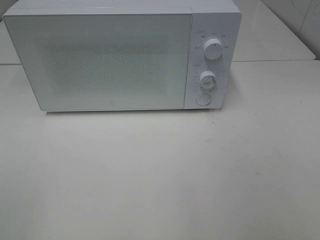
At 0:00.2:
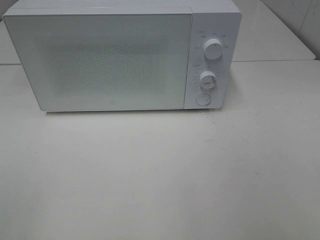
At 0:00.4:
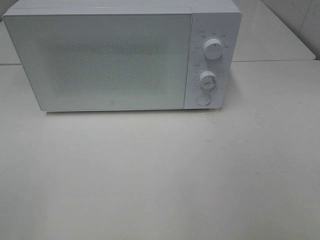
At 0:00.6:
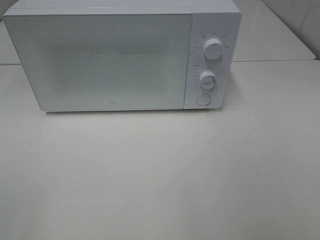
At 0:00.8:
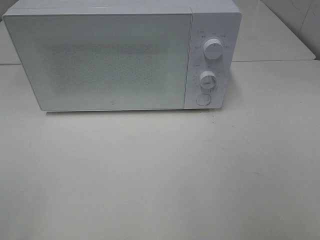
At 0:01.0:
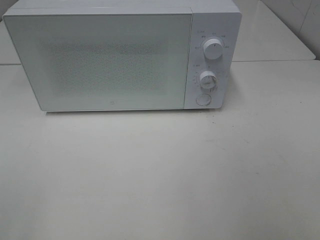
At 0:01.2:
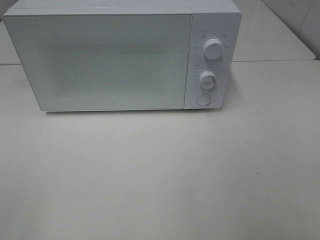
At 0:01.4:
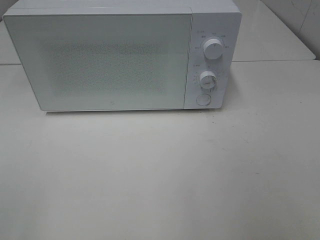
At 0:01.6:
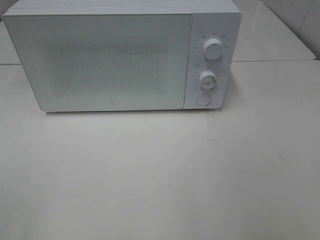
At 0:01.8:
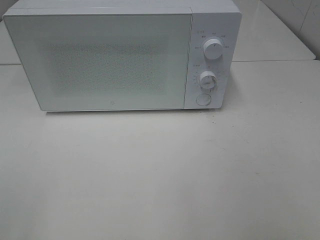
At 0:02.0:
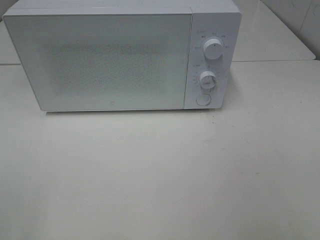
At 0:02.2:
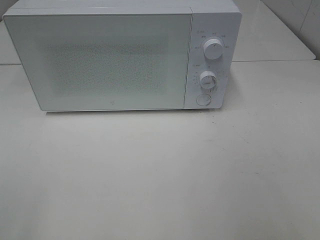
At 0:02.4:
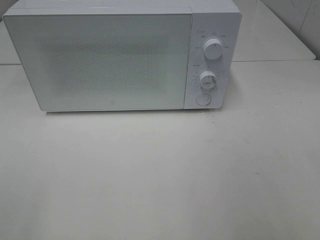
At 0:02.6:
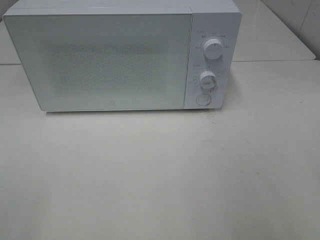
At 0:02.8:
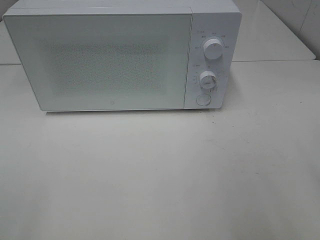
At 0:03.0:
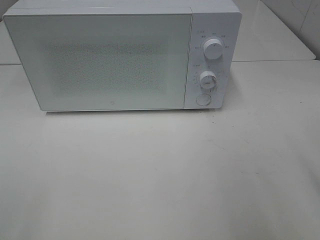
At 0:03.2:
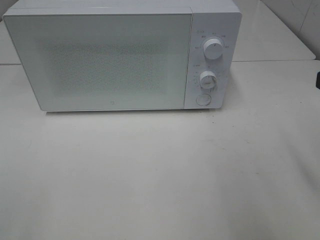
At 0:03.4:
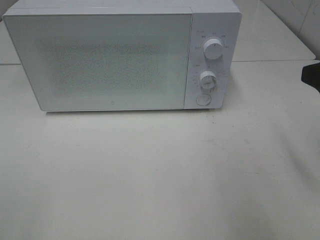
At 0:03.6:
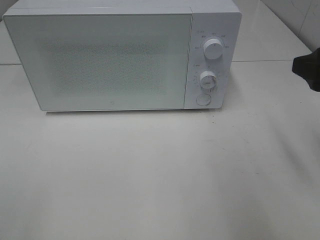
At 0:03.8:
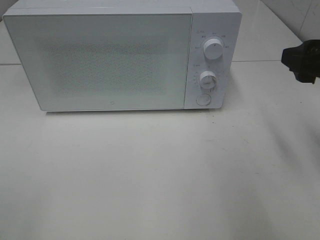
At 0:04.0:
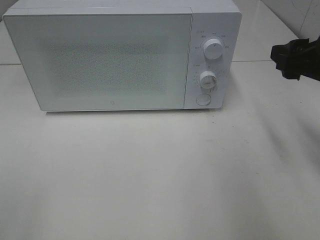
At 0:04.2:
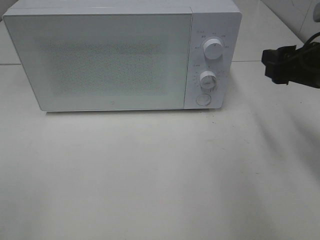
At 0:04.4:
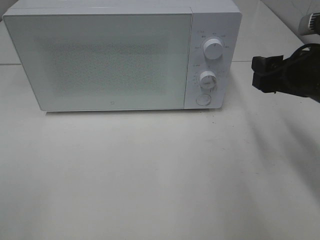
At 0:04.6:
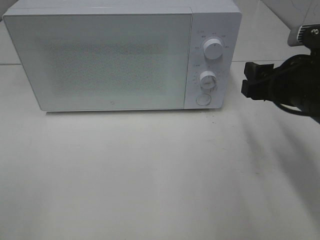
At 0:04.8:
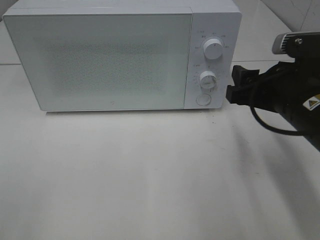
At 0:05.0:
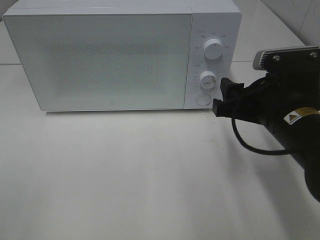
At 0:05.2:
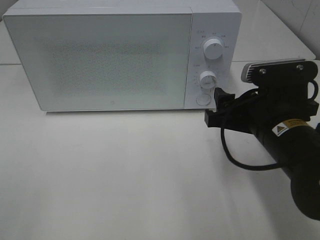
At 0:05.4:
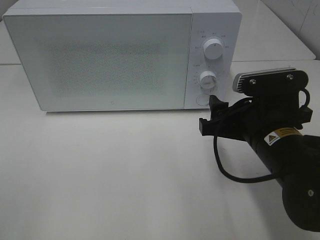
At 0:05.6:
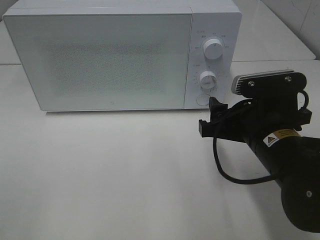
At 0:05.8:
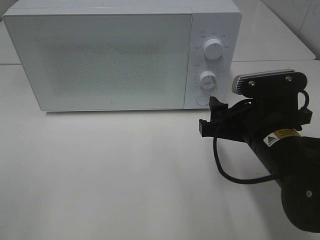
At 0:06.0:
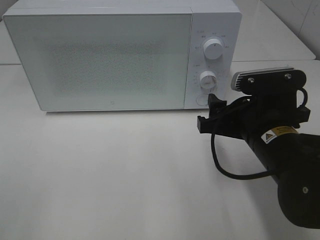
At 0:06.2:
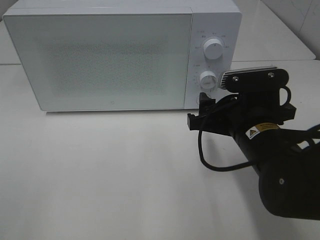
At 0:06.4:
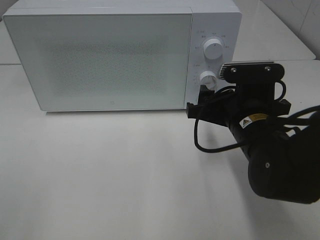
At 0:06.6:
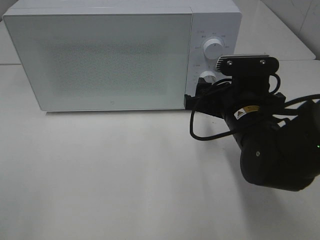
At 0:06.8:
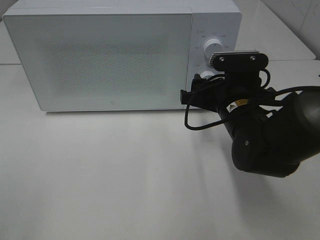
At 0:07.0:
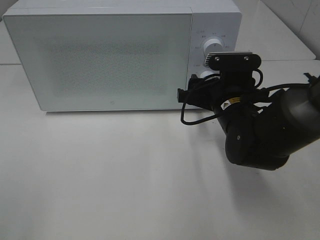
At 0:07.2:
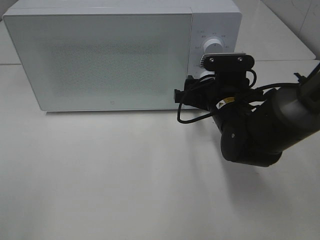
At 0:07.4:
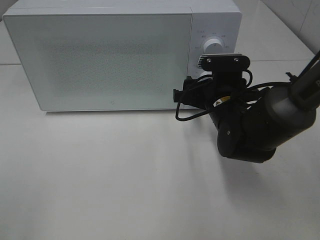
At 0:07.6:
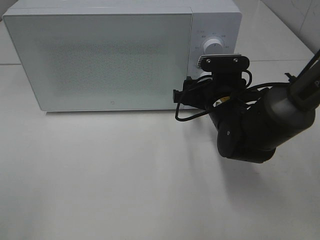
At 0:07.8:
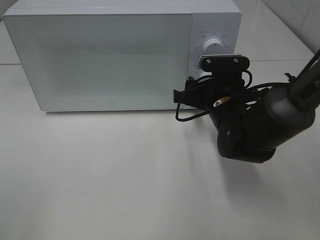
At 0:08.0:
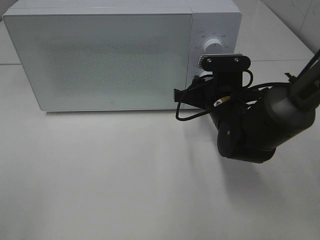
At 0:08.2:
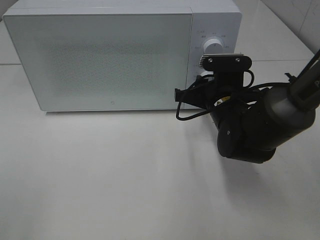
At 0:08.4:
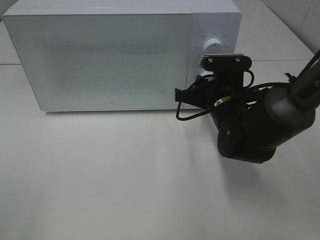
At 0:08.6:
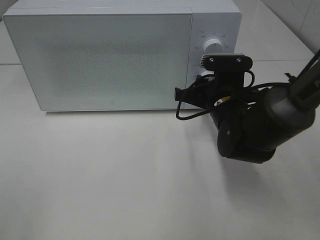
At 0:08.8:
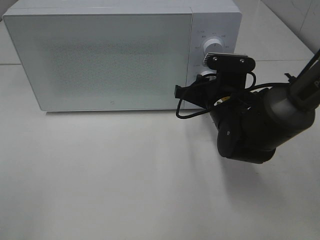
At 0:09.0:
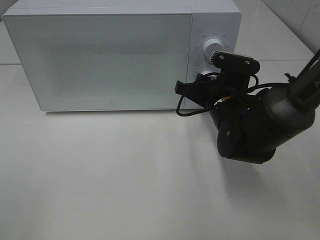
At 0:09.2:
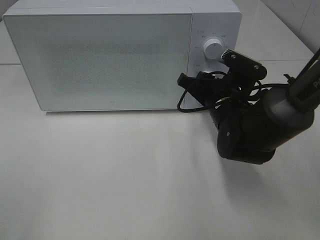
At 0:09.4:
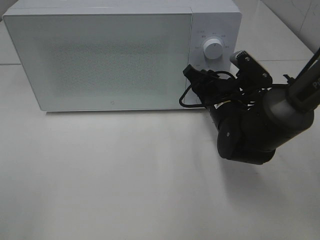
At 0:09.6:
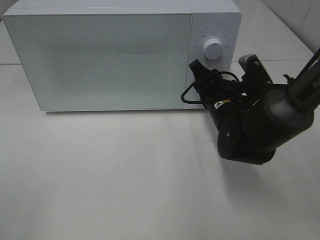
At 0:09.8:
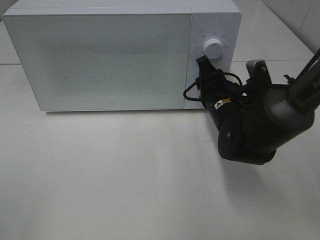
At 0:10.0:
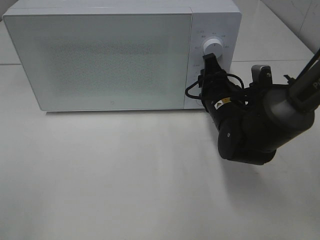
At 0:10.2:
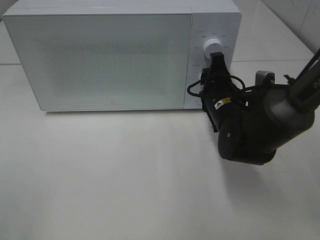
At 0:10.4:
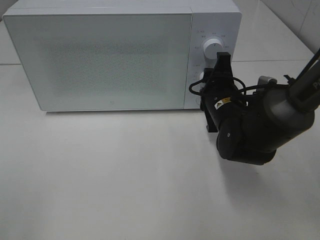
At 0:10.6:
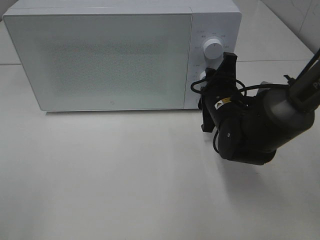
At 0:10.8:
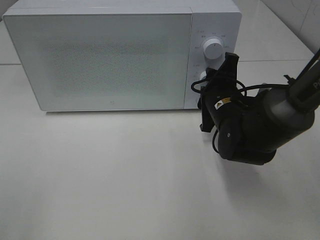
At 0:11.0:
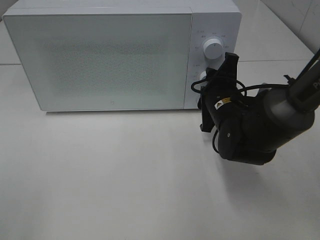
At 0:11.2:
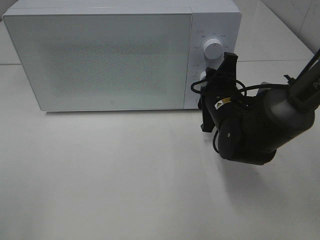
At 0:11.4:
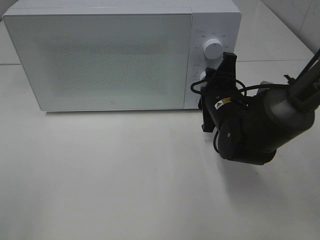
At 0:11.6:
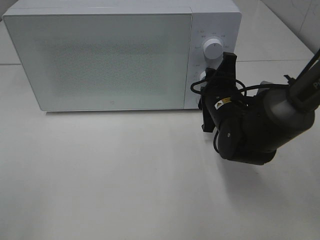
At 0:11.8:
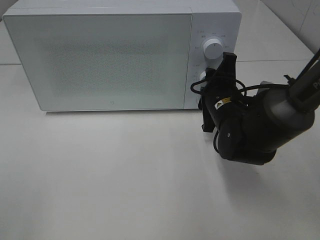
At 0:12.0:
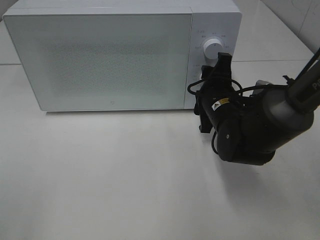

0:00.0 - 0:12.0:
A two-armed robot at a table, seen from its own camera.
Task of the whole recording: Heat Sandwich.
0:00.0 - 0:01.6: The two grippers keep their place.
0:03.0 - 0:04.4: The right gripper heads forward and downward, covering roughly 15 cm.
0:04.4 - 0:06.0: The right gripper moves to the left and downward, approximately 10 cm.
0:06.0 - 0:07.6: The right gripper is displaced forward by roughly 10 cm.
0:07.6 - 0:09.0: The right gripper closes its fingers.
0:10.4 - 0:12.0: The grippers make only small movements.

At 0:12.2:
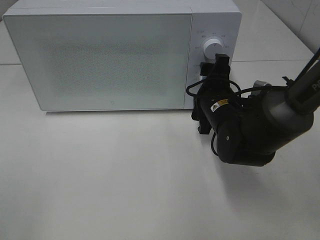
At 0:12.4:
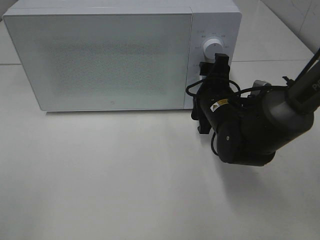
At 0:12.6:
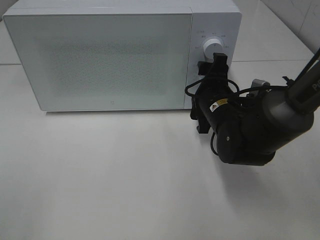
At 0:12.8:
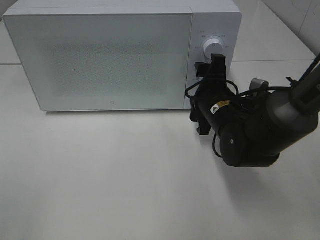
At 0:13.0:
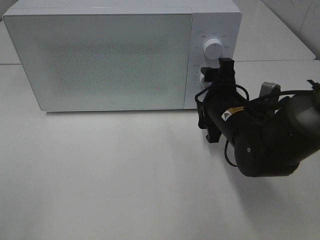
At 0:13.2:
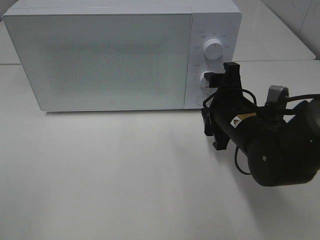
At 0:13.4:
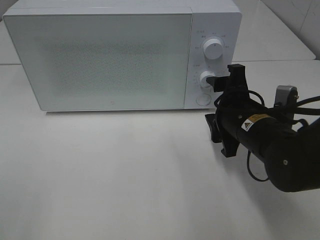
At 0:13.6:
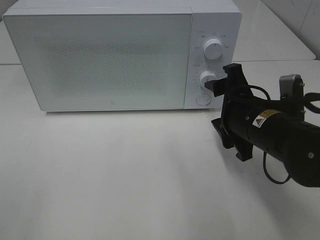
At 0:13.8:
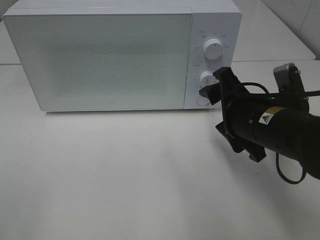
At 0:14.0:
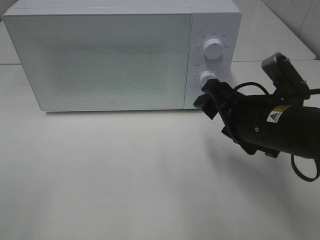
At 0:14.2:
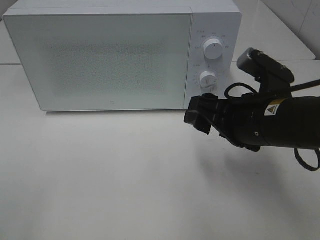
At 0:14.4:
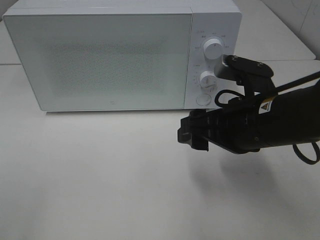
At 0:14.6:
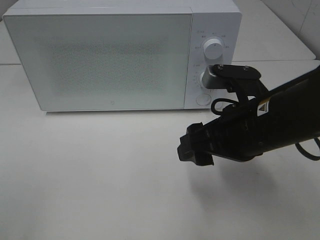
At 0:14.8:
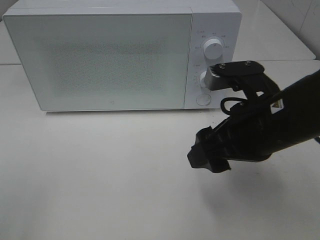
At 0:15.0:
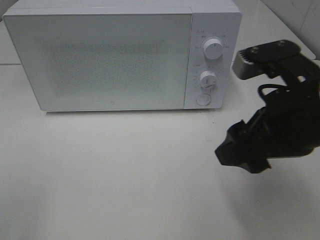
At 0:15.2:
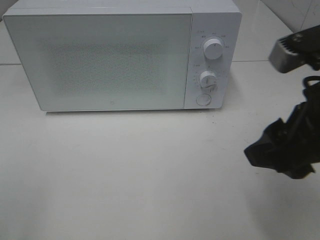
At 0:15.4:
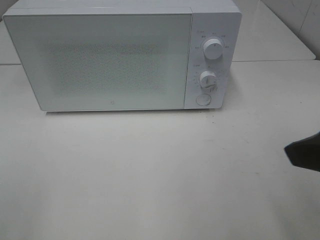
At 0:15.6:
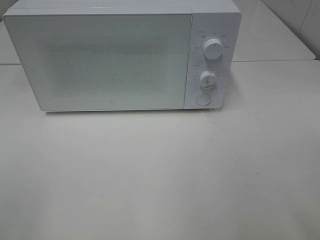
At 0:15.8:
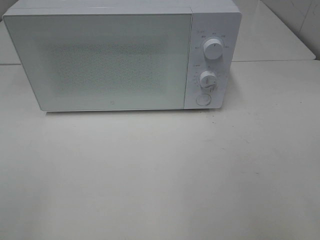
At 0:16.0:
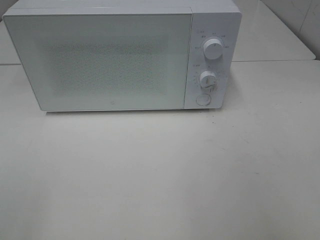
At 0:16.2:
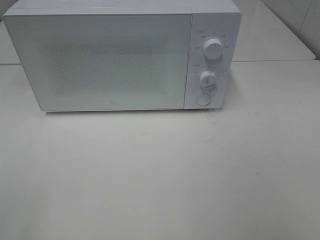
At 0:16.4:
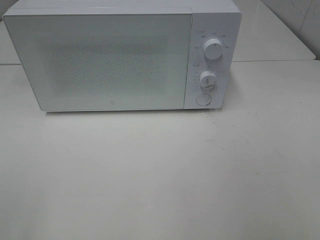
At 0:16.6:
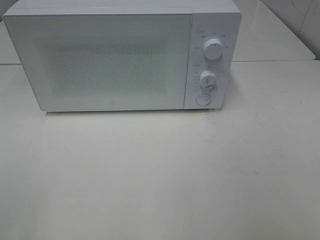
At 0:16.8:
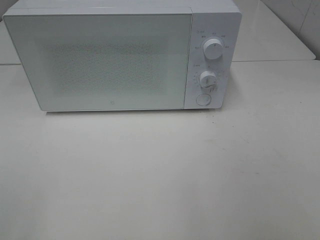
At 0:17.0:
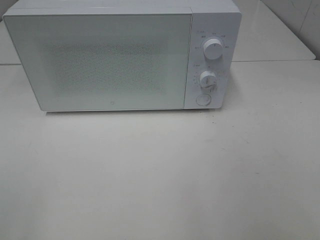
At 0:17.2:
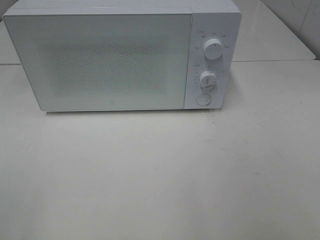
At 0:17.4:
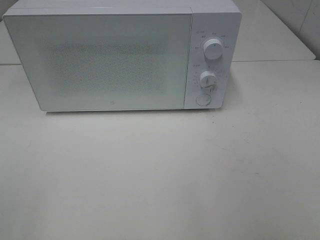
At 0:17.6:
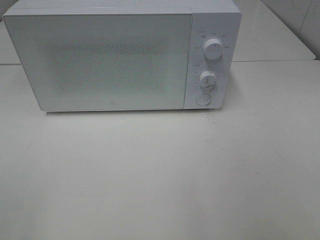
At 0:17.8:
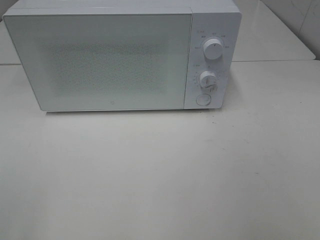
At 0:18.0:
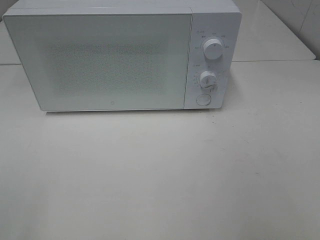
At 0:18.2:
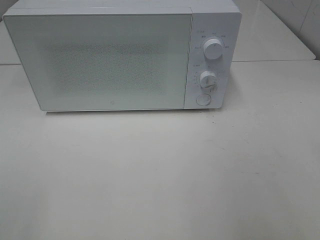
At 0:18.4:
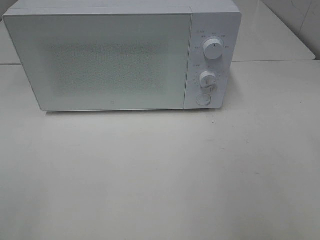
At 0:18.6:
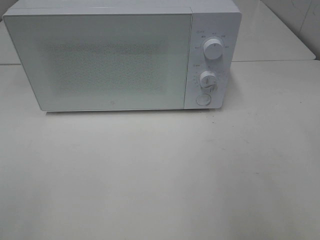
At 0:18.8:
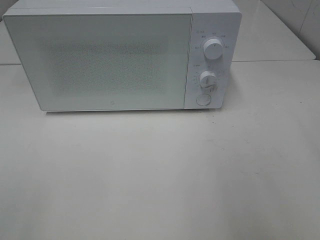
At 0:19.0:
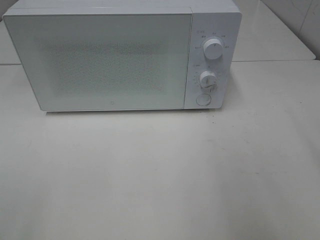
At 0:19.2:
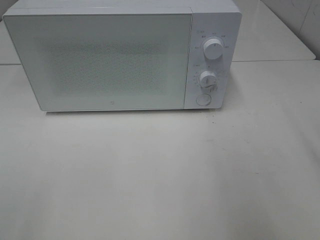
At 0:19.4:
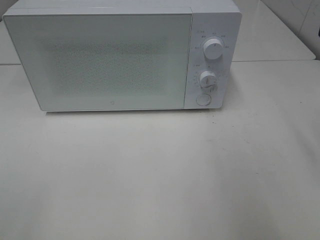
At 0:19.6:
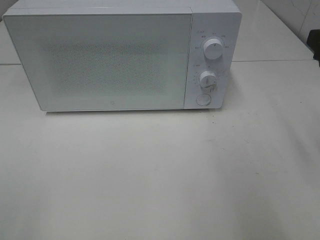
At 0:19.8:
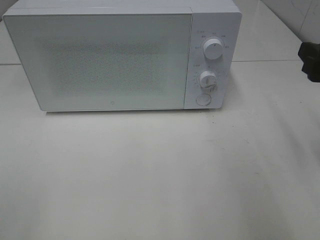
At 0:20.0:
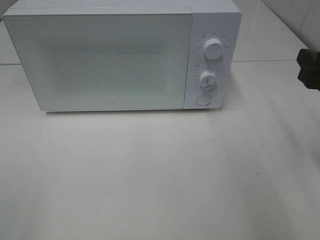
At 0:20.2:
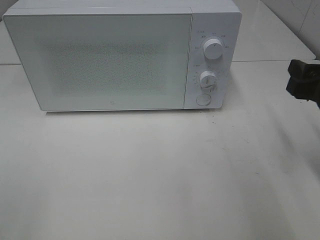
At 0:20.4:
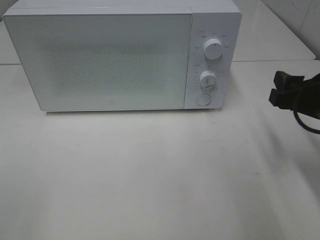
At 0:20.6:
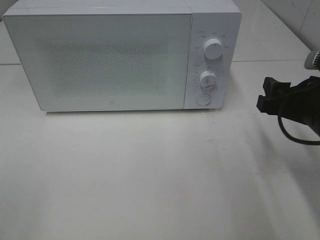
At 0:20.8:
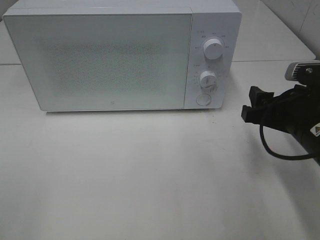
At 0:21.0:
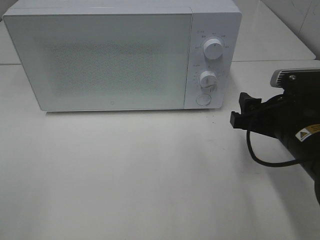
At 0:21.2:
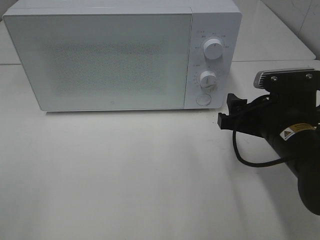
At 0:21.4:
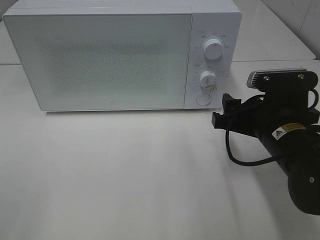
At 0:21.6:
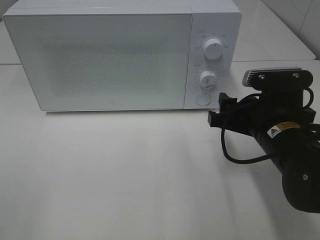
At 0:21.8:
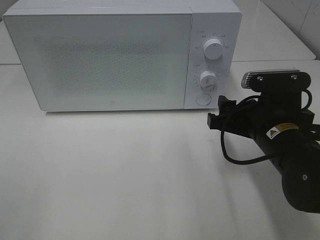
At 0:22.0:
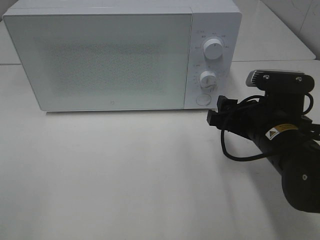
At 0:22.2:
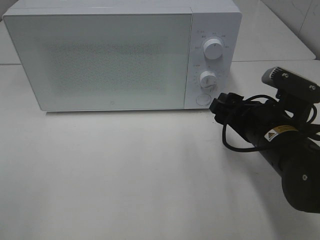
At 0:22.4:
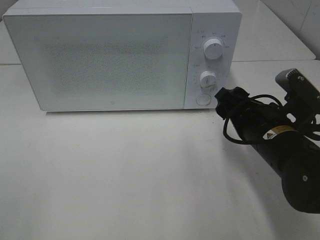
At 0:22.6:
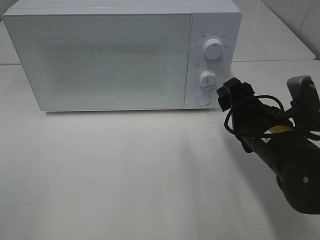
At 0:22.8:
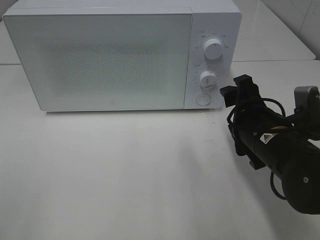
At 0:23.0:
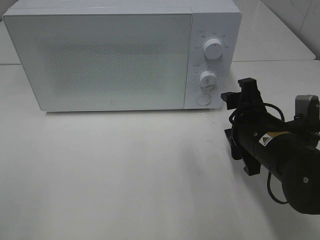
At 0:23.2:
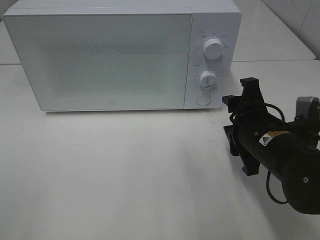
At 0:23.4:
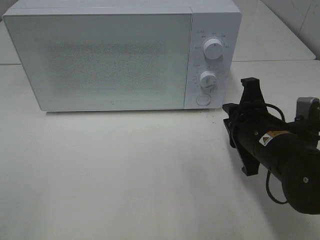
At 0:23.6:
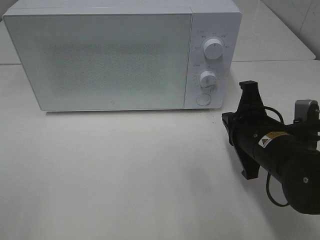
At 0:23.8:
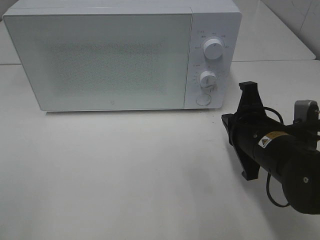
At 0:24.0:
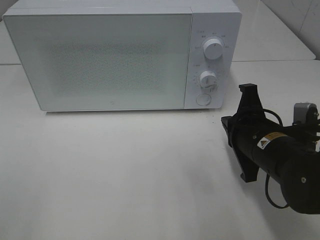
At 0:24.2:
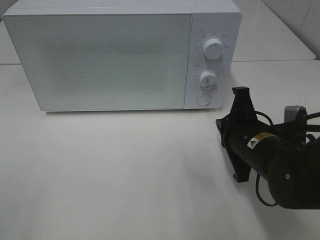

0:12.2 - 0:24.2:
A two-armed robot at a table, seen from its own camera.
Task of the whole recording: Heat Sandwich.
0:12.2 - 0:13.8: The right gripper goes some 10 cm backward and upward.
0:13.8 - 0:15.2: The right gripper is displaced upward and backward by roughly 15 cm.
0:15.2 - 0:16.6: The right gripper moves backward and to the right, roughly 20 cm.
0:18.2 - 0:19.8: The right gripper moves forward and downward, about 20 cm.
0:19.8 - 0:21.2: The right gripper moves to the left and downward, roughly 15 cm.
0:22.6 - 0:24.2: The right gripper closes up.
